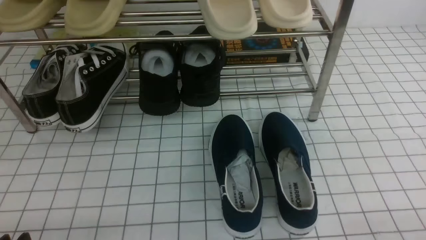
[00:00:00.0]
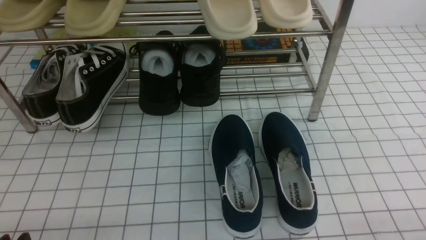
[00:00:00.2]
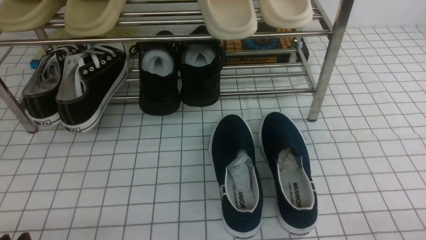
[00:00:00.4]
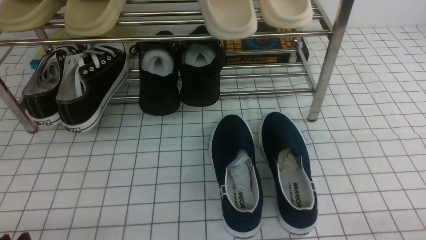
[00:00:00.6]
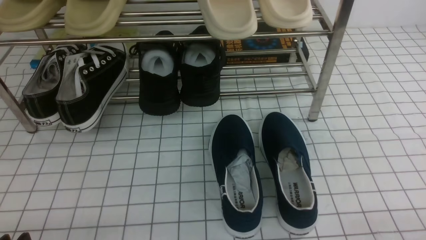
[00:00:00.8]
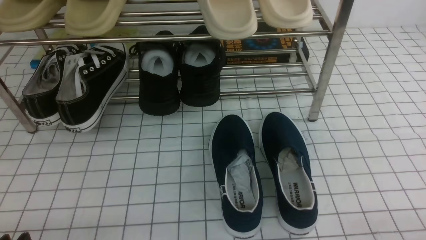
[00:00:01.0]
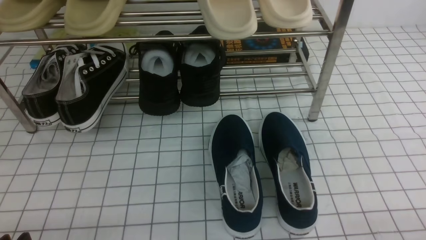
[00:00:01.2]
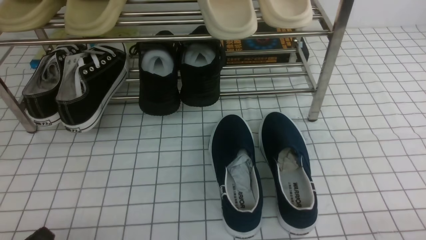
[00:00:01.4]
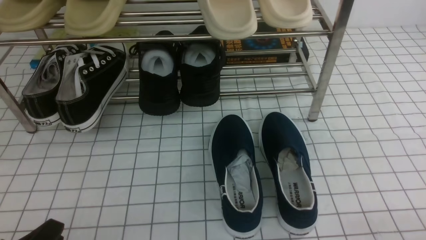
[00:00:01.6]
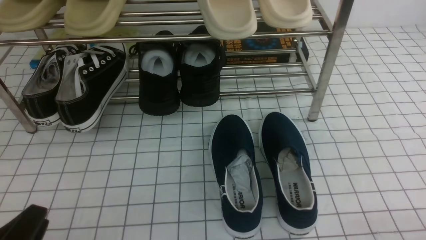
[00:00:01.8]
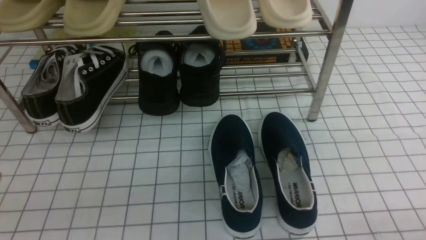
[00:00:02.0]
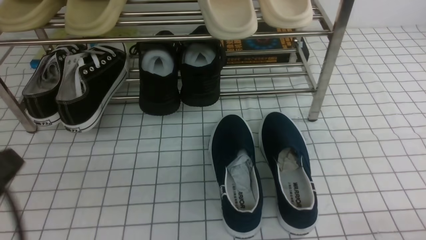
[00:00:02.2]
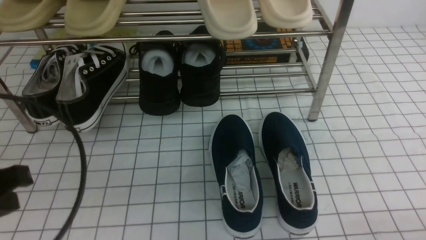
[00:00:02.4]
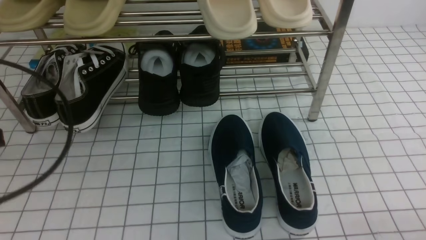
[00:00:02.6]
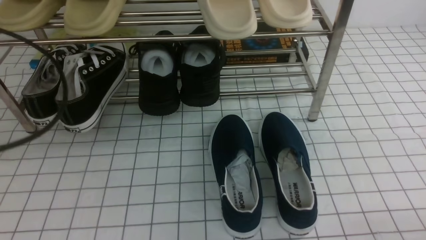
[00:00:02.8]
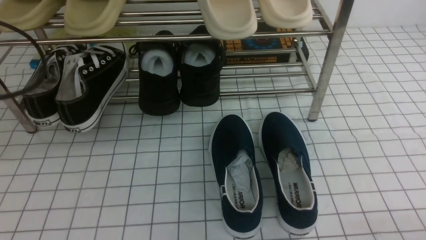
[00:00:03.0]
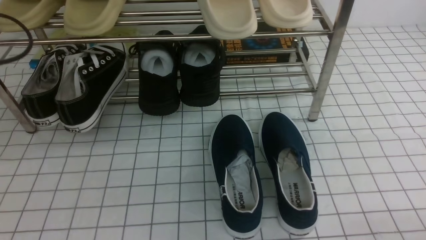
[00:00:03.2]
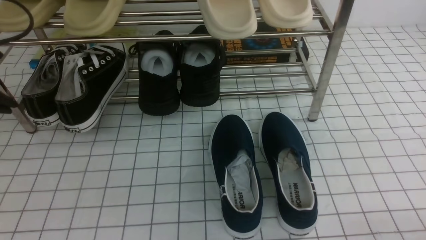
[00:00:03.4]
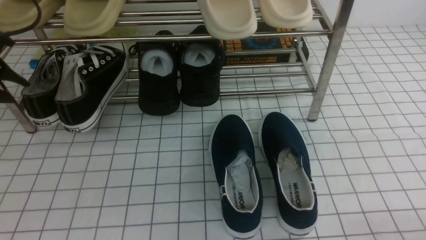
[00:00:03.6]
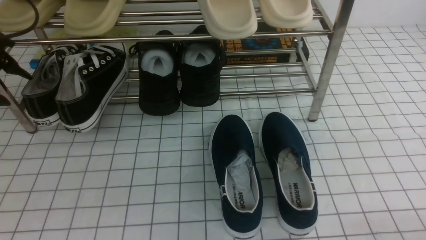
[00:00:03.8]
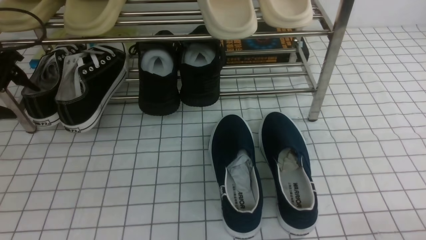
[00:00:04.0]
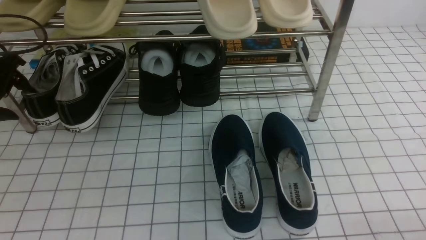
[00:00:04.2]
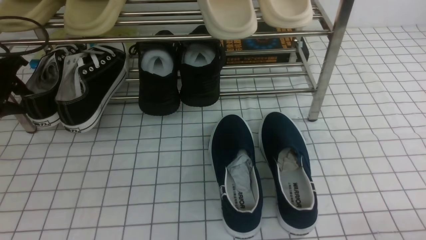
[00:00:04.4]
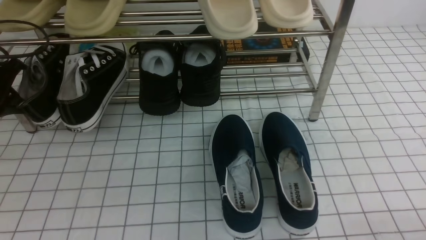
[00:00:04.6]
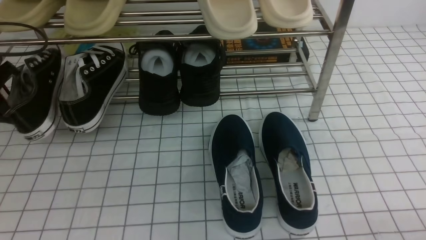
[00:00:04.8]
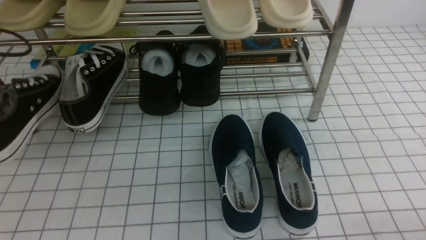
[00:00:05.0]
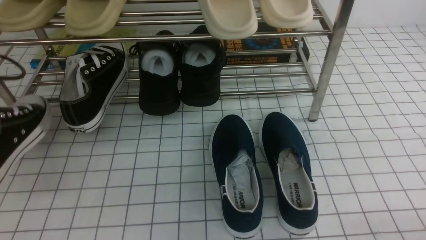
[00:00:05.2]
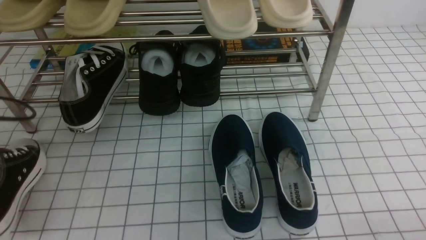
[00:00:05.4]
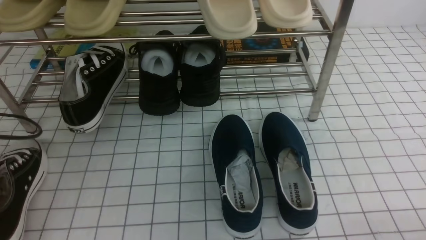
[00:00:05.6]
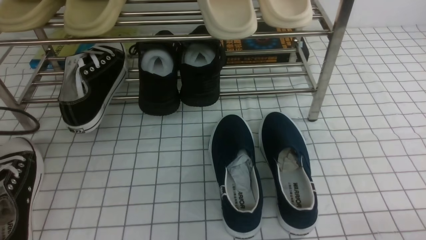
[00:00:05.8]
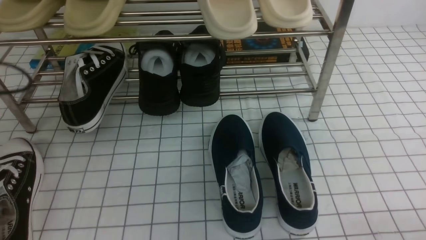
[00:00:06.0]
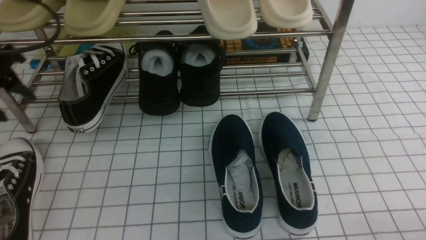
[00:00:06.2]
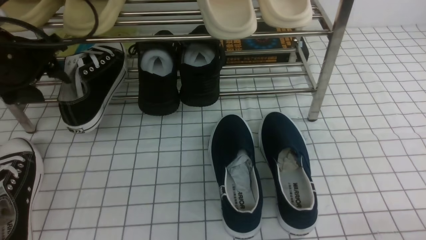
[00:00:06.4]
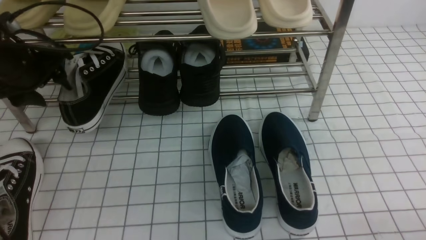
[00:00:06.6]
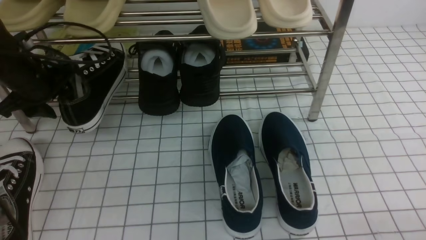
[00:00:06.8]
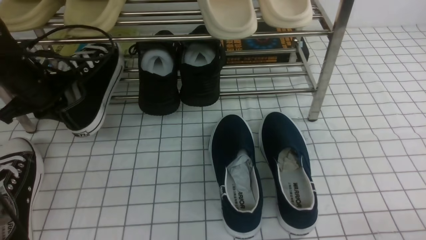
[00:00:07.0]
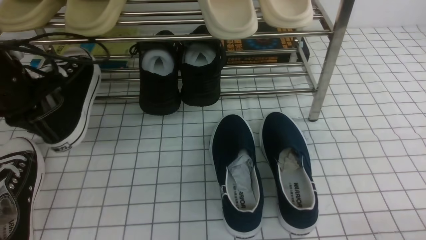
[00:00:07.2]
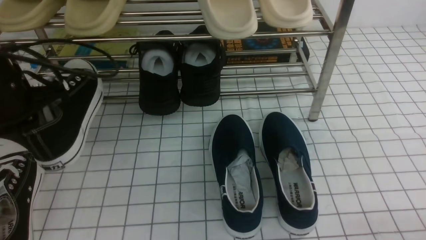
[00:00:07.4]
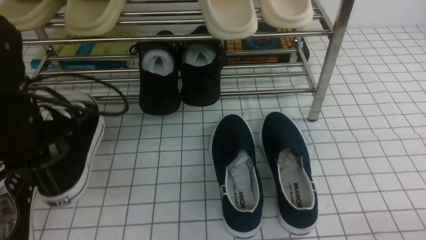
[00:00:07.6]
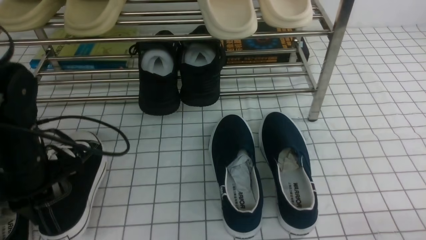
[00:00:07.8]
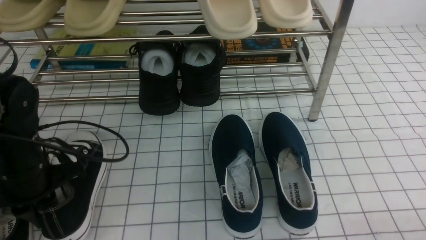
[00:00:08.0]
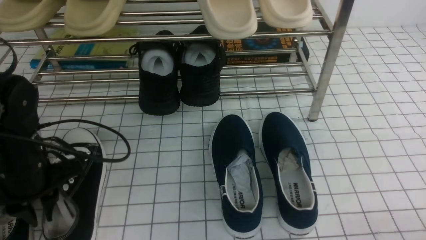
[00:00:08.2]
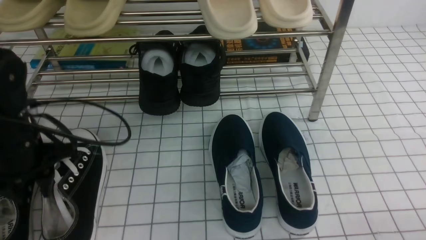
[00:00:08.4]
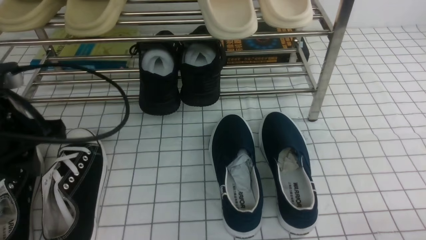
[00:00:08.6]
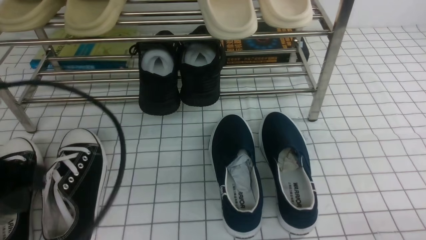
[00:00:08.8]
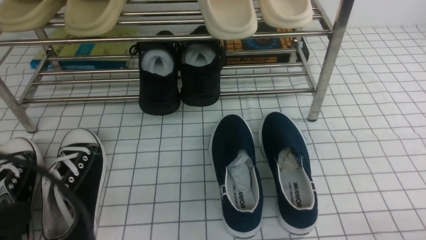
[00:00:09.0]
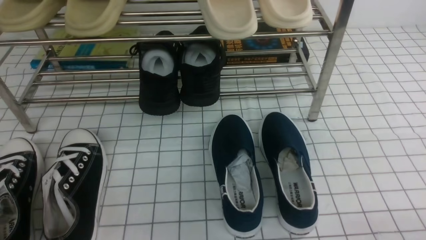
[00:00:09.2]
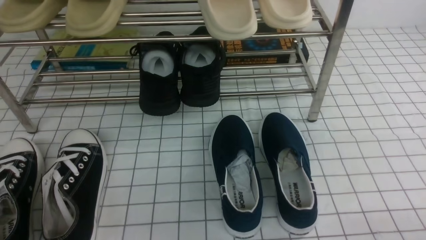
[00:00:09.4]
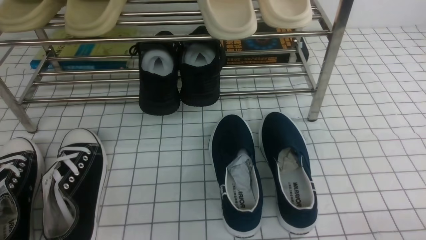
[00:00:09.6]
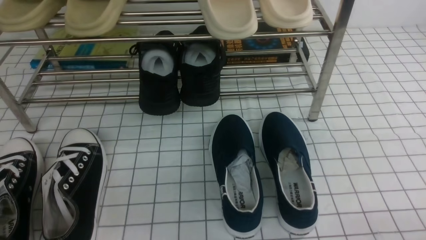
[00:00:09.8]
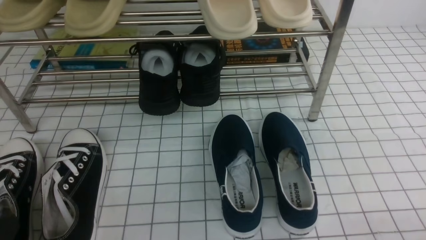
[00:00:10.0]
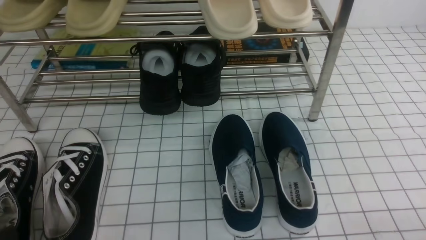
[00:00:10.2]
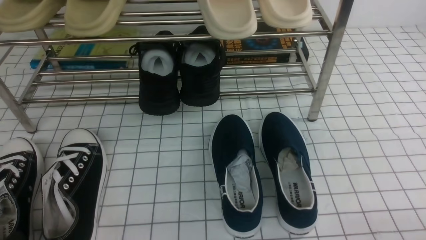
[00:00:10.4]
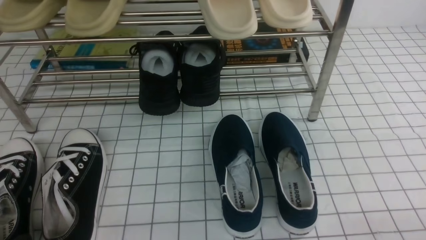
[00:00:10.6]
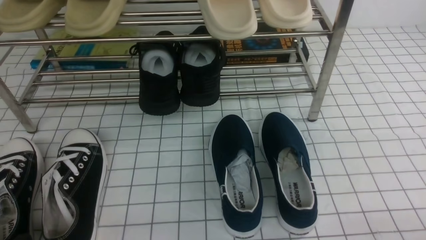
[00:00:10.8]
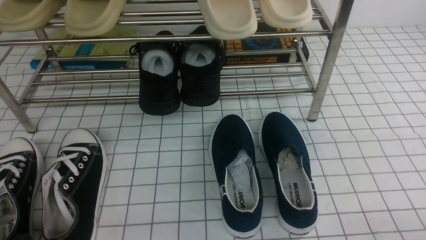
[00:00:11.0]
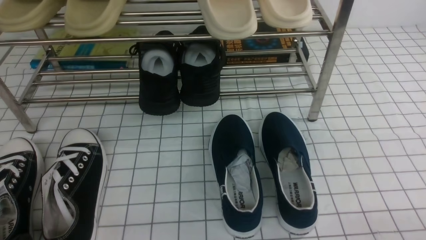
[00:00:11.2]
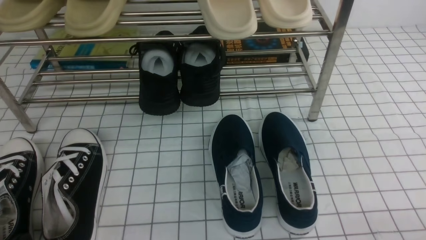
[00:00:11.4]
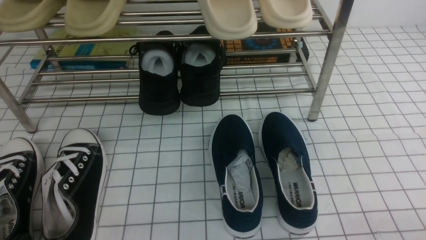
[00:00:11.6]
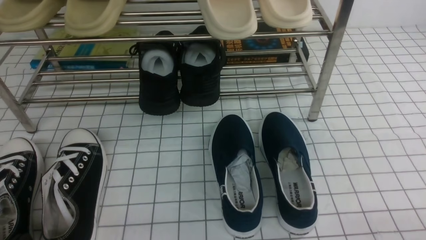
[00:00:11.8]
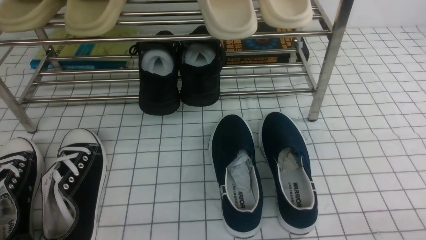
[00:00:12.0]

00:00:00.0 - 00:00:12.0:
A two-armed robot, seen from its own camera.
Step, 00:00:00.0 - 00:00:04.4: use the left arm to clamp a shoe on the left side of the shoe rack.
Step, 00:00:04.8 - 00:00:05.8: Use your left arm to remove the clamped shoe from the shoe rack and put it down.
Step, 00:00:06.0 - 00:00:06.8: use the left arm to clamp a shoe on the left side of the shoe rack.
Step, 00:00:07.2 - 00:00:08.4: Use your left arm to remove the clamped shoe from the shoe rack and put it down.
00:00:01.6 - 00:00:03.0: The left gripper is displaced forward and upward by some 25 cm, and closes.
00:00:03.0 - 00:00:04.4: The left gripper moves forward, downward and to the left, approximately 20 cm, and opens up.
00:00:04.4 - 00:00:06.0: The left gripper moves backward, roughly 10 cm, and closes, then reopens.
00:00:06.0 - 00:00:07.6: The left gripper travels to the right by approximately 10 cm, travels forward and back again, about 15 cm each way, and closes up.
00:00:07.6 - 00:00:09.0: The left gripper moves backward, roughly 20 cm, and opens, then closes once more.
00:00:09.0 - 00:00:10.4: The left gripper goes some 15 cm downward.
00:00:10.4 - 00:00:12.0: Both grippers stay about where they are.
